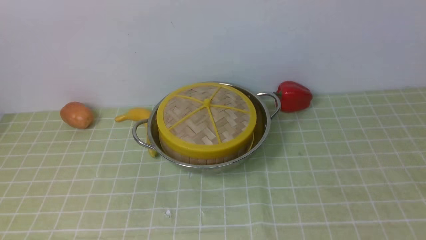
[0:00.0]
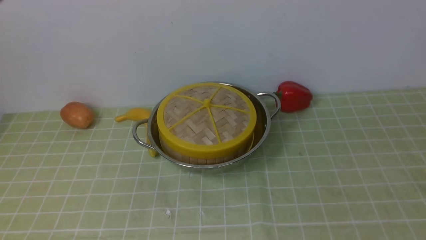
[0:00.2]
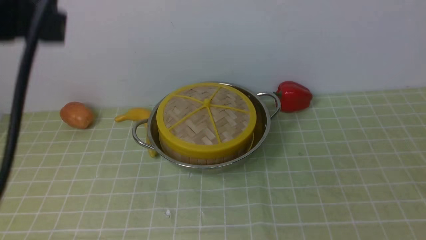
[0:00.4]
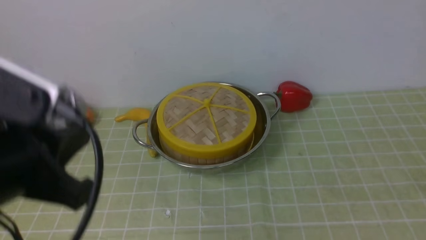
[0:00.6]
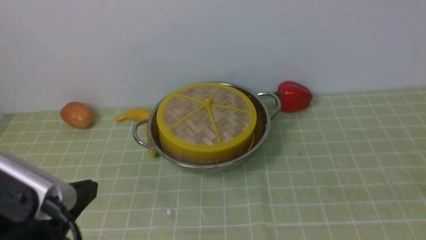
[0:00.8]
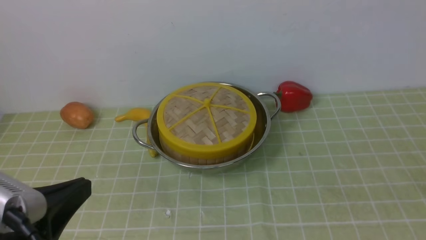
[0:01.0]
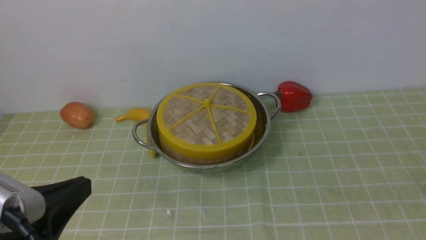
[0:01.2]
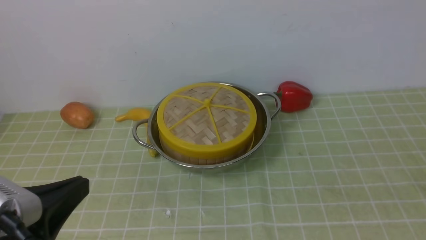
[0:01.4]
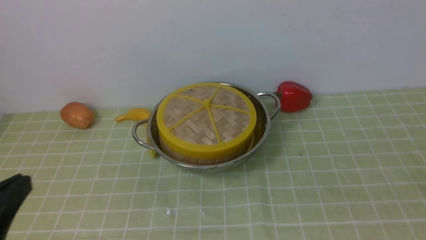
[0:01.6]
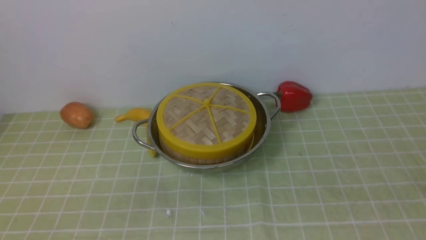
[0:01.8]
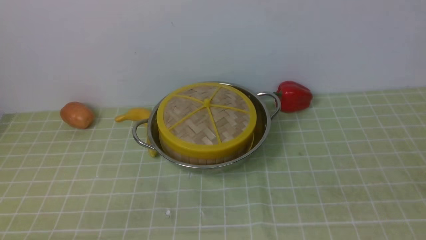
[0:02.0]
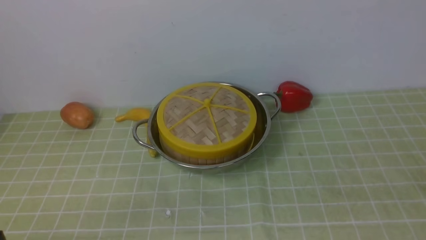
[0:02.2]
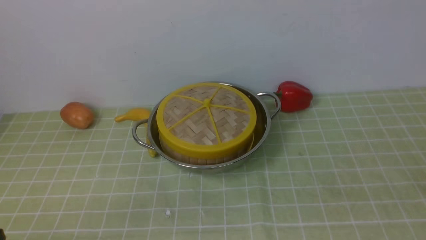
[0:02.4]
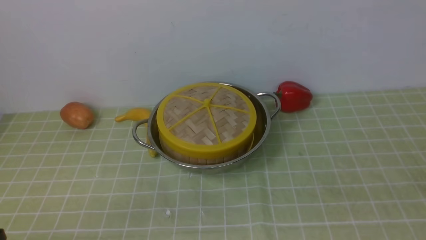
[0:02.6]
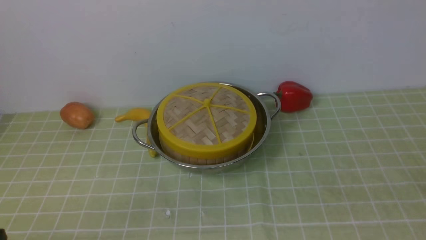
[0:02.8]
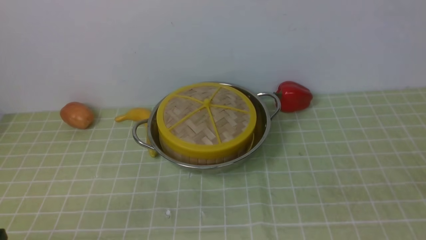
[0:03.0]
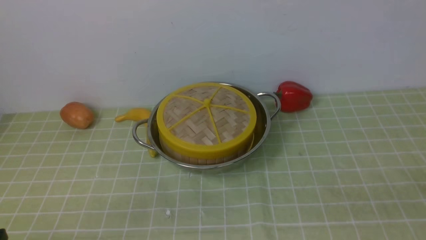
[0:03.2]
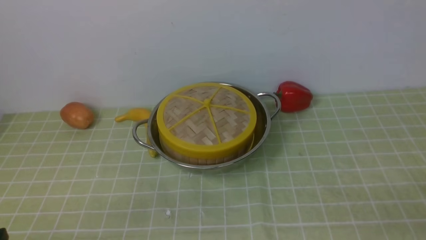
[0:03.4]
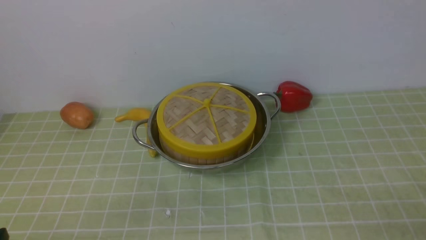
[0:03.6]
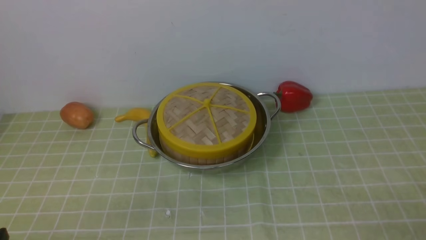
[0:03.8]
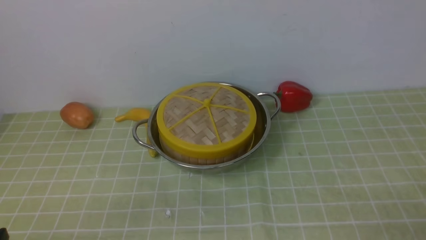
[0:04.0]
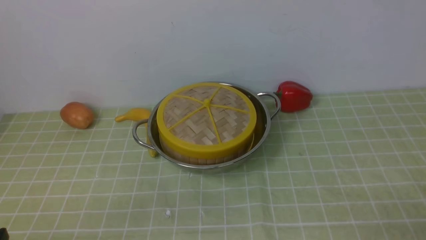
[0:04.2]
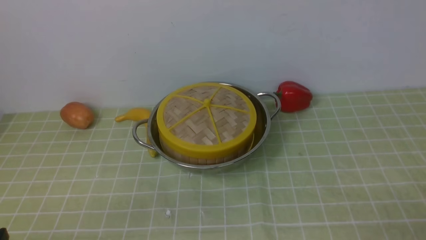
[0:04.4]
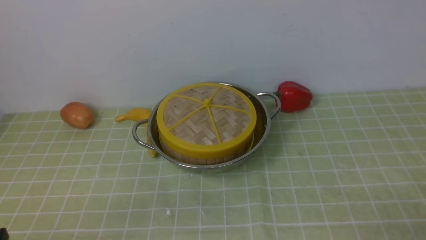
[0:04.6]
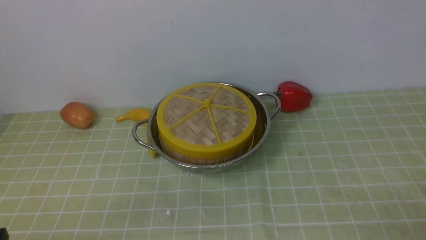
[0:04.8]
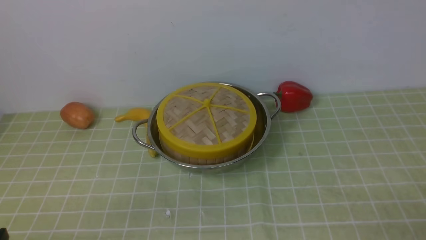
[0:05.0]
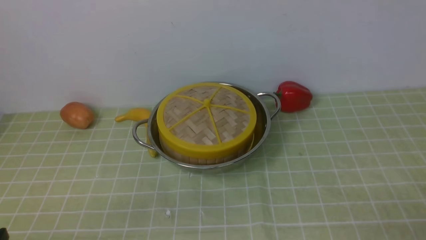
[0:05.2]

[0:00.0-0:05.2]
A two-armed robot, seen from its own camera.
Task of the whole recording: place the steamer in the pot on the green tablecloth, and put the lid on the steamer.
0:00.0 to 0:01.8: The left gripper travels downward, backward and to the left by roughly 40 cm.
